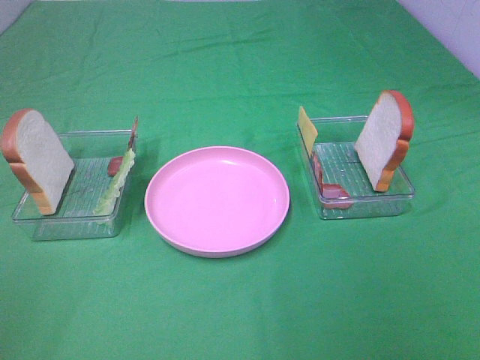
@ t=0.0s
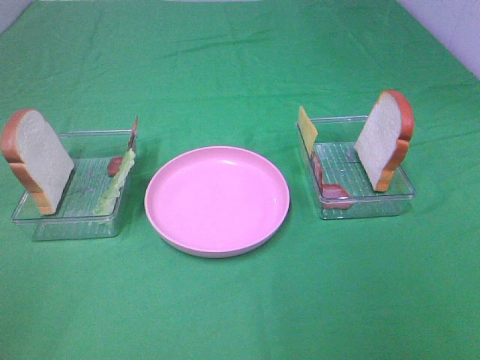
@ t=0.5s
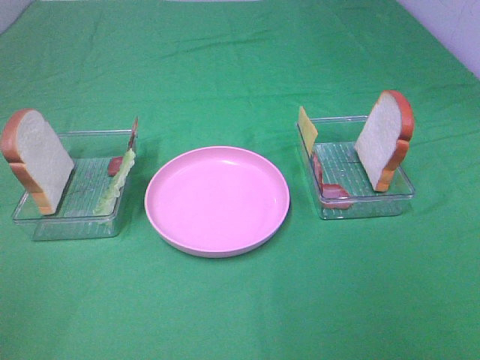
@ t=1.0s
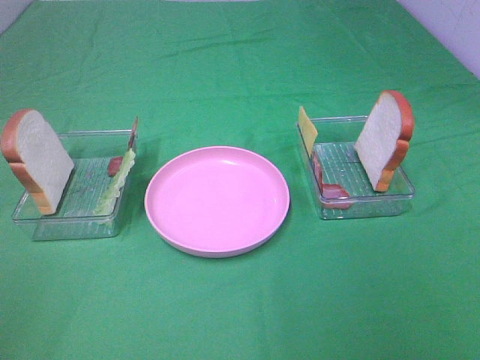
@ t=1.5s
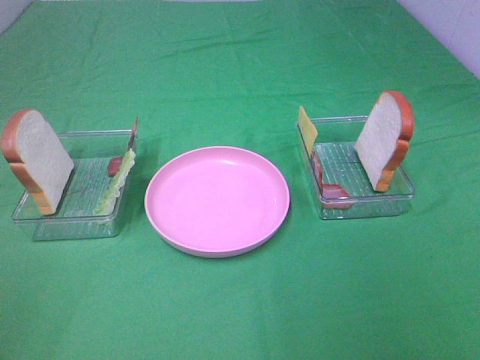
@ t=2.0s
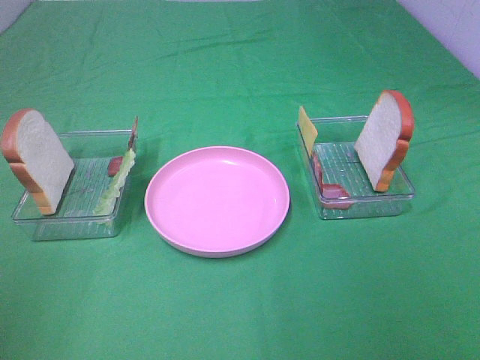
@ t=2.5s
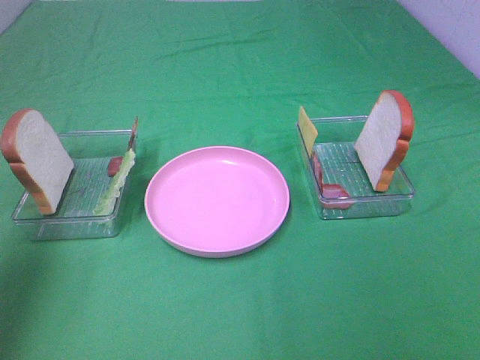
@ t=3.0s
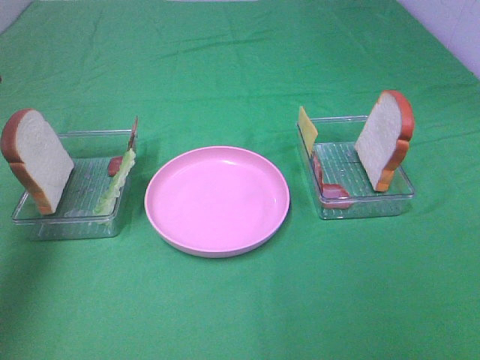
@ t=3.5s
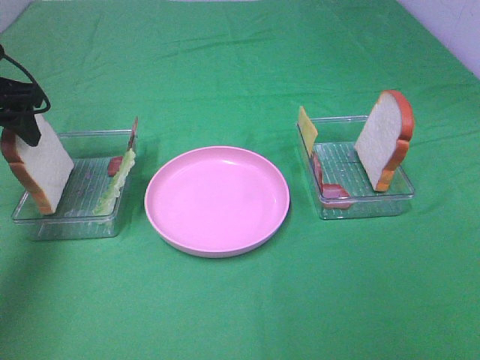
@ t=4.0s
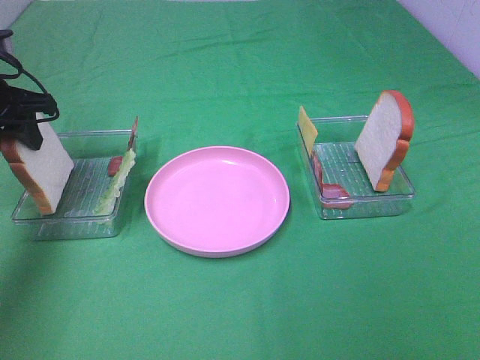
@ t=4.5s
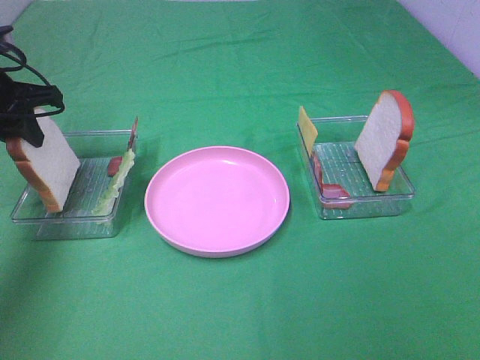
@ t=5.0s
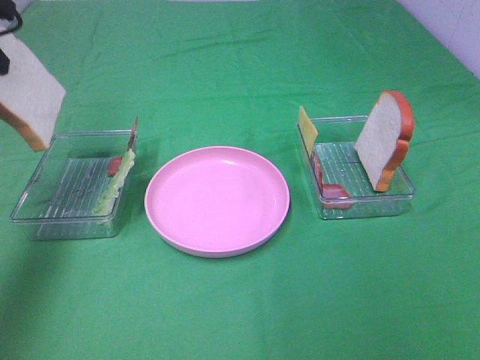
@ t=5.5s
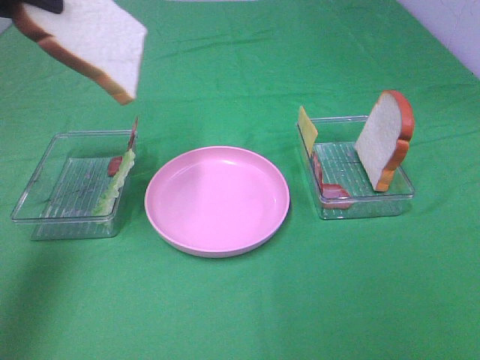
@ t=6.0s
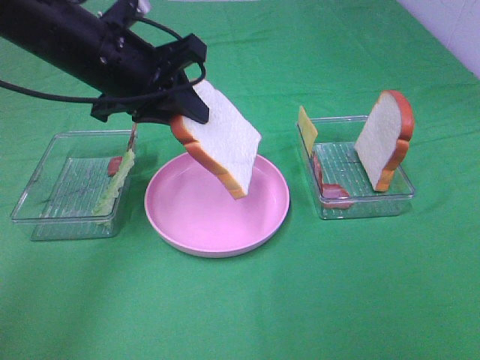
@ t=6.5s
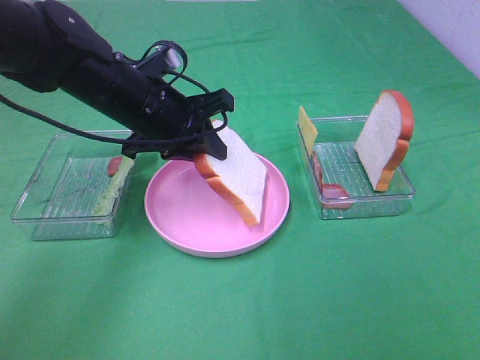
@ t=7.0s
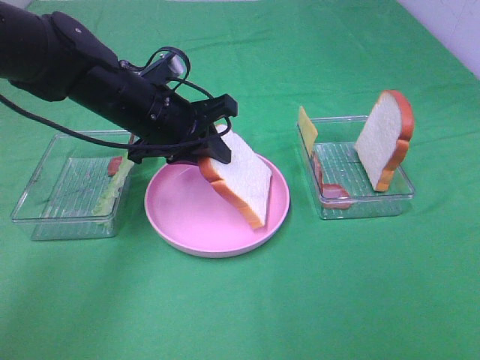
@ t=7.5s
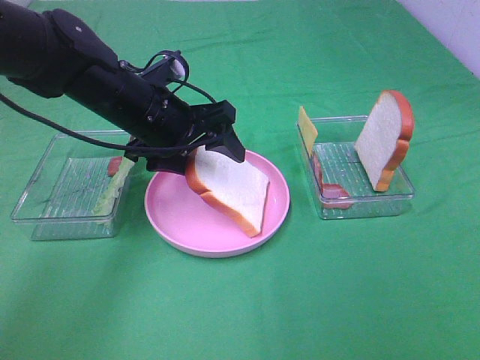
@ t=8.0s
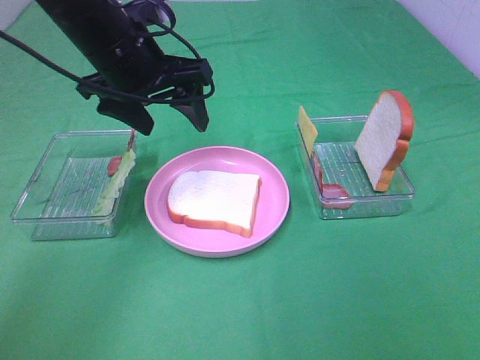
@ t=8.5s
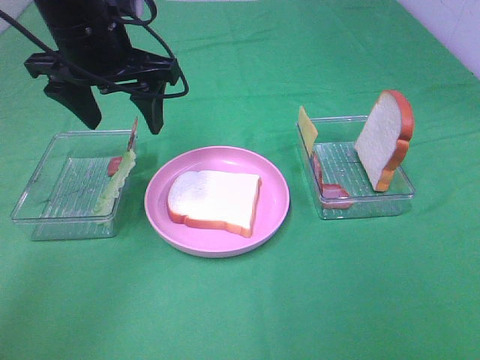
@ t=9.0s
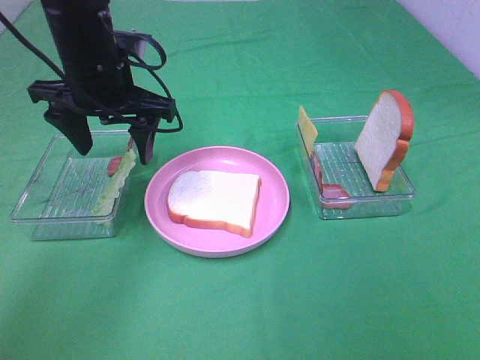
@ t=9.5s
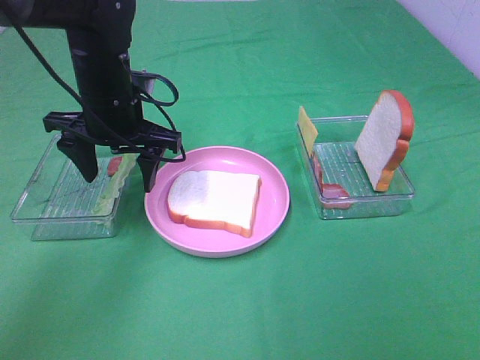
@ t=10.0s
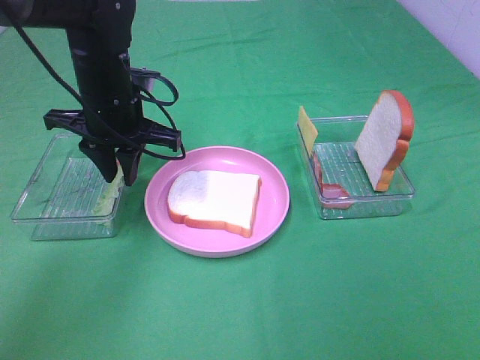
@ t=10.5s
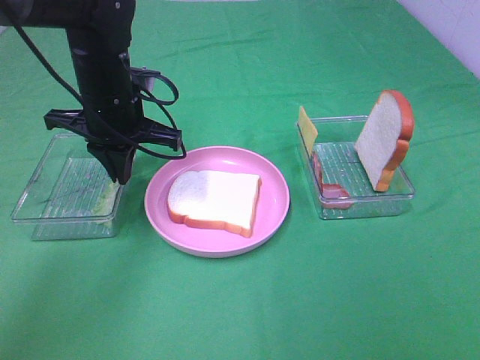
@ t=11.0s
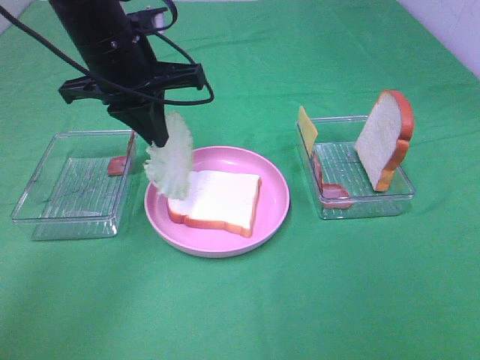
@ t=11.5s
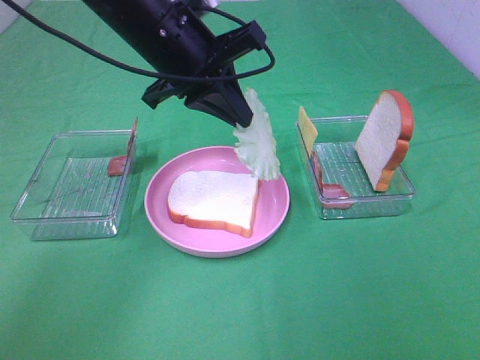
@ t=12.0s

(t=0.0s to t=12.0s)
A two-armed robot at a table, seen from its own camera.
Task of the whole recording: Make sandwiches.
Step, t=0.0s - t=4.5s: Left hand:grab the bread slice.
Step, t=5.0s - t=8.0s: Left hand:place the bread slice on the plate.
Step, t=8.5s - t=11.0s: Left hand:grab the lettuce slice.
t=0.0s - t=2.0s: Neither gripper changes place.
t=2.0s - t=4.0s: The left gripper goes approximately 35 cm forward.
t=4.0s - t=6.0s: The left gripper shifts some 15 cm upward, to the right and backward, and closes its fingers.
t=6.0s - t=8.0s: The left gripper moves downward and to the right, roughly 25 cm, and opens its fingers.
t=8.0s - t=10.0s: The left gripper reaches about 10 cm upward, then returns.
t=10.0s - t=12.0s: The left gripper heads upward and to the right, covering approximately 10 cm, and closes its fingers.

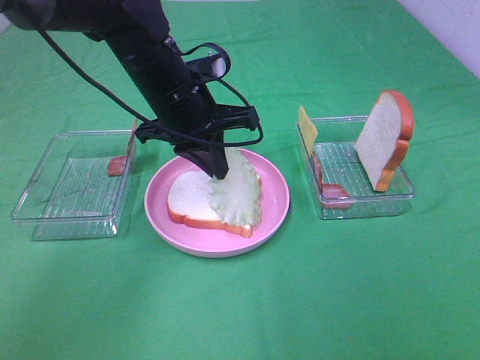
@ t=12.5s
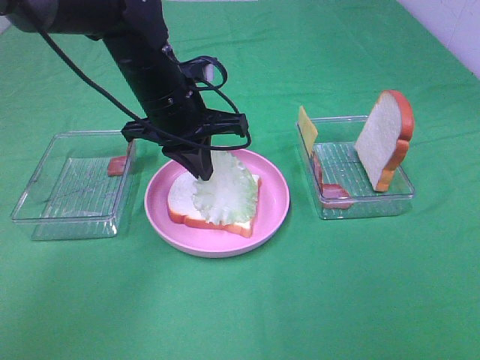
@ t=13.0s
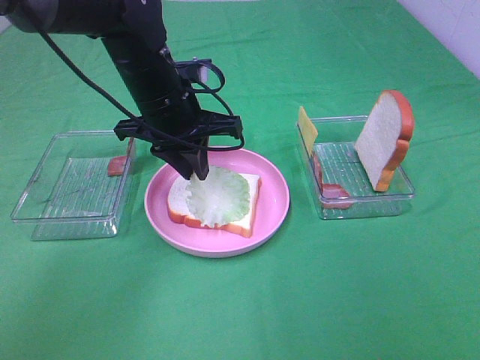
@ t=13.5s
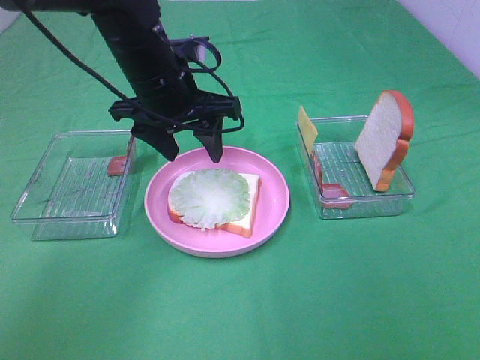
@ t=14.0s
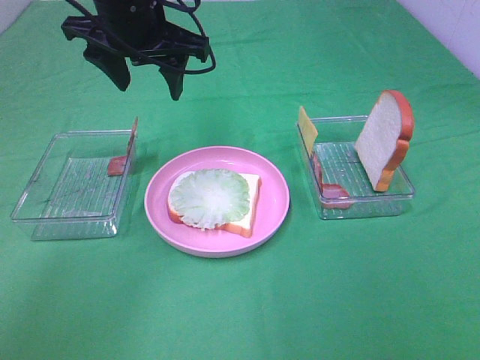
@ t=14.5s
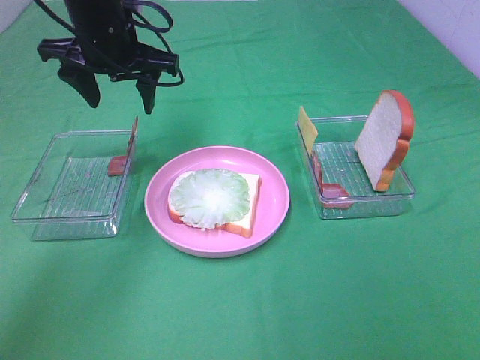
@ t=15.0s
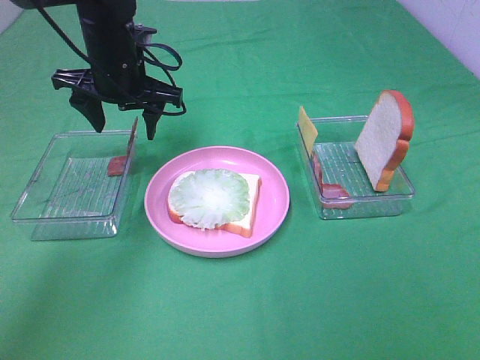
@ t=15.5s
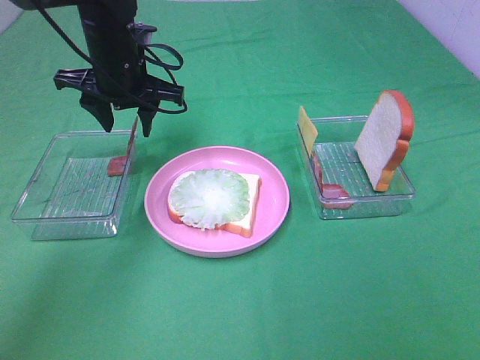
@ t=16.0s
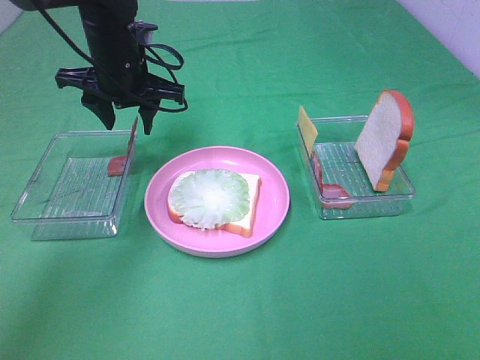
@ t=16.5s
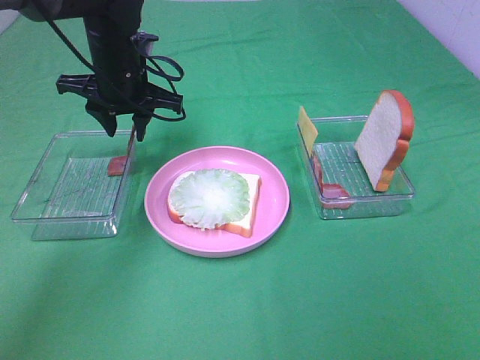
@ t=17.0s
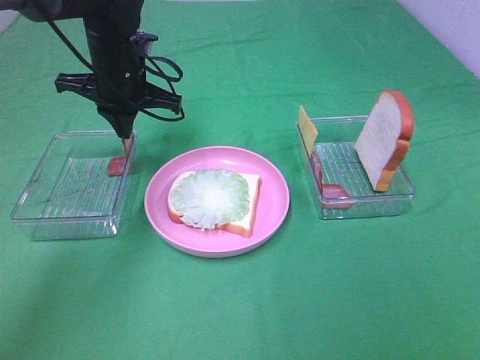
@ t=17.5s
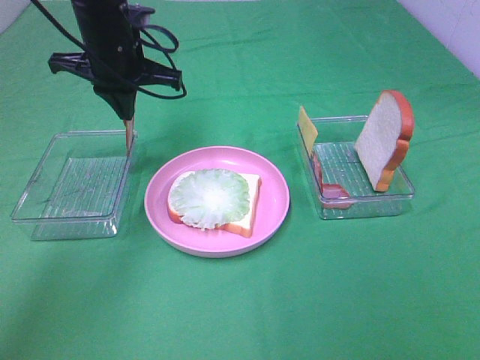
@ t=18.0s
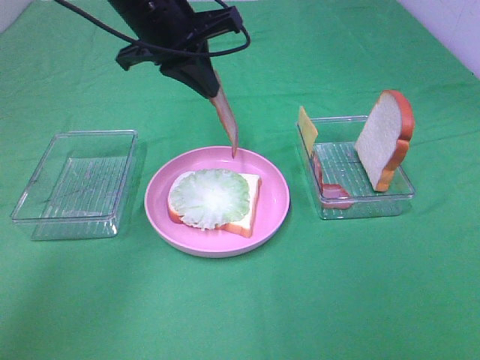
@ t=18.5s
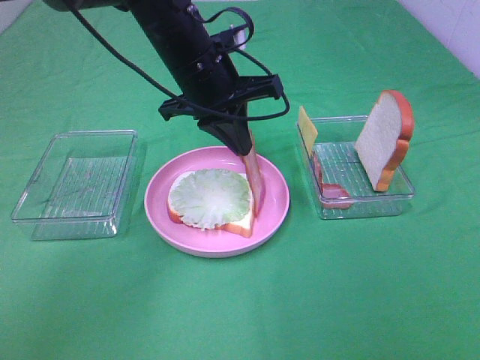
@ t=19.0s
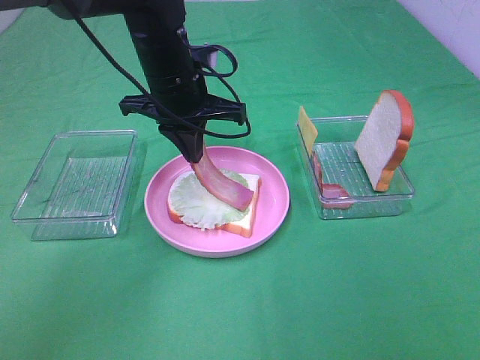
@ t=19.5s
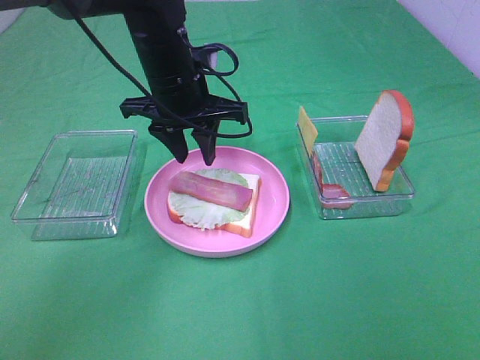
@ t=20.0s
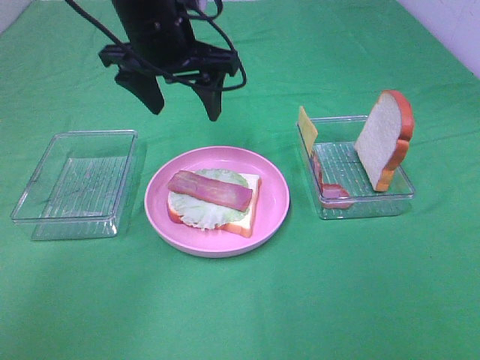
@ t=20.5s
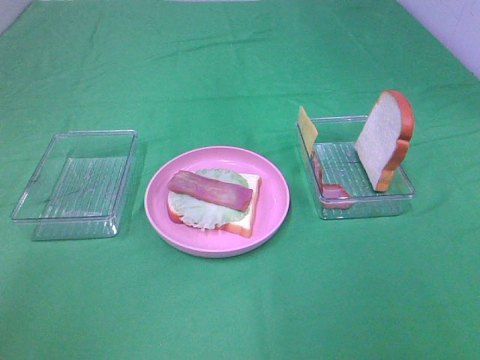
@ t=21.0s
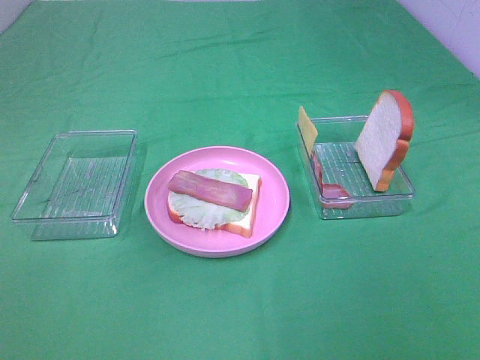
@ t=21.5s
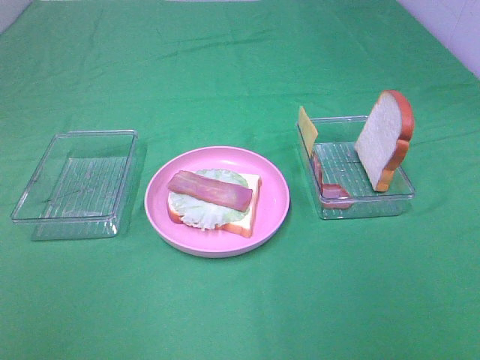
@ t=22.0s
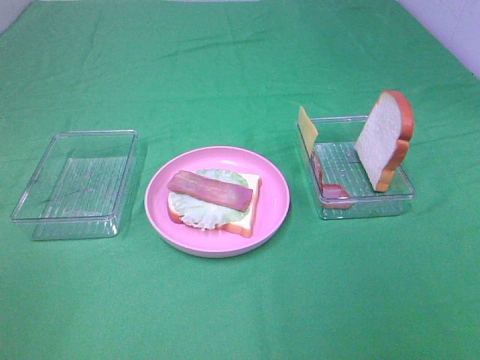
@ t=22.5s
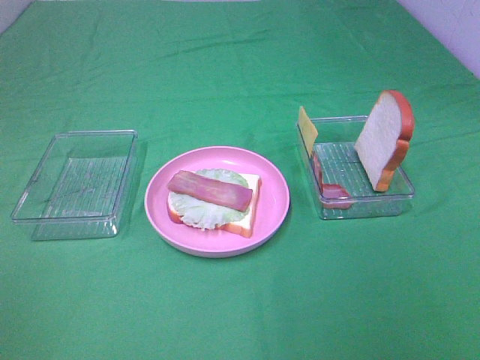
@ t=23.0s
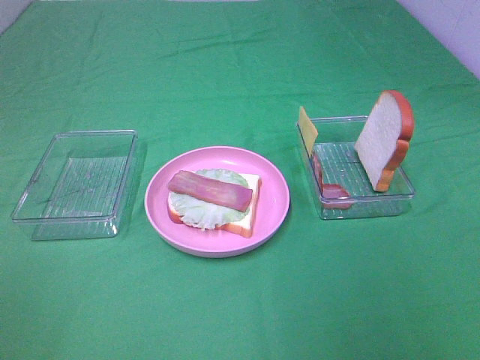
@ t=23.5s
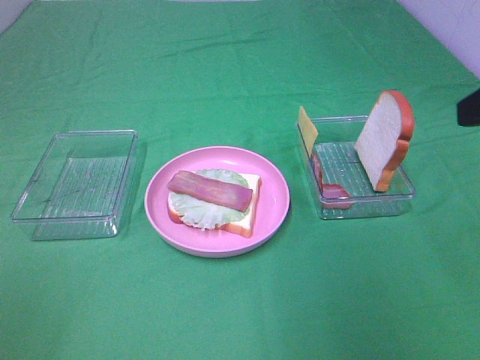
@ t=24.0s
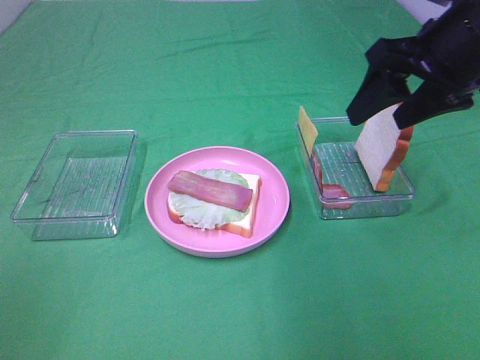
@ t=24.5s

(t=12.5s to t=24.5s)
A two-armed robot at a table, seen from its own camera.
Task of the whole recording: Make sandwiches.
Step, t=14.0s - t=17.5s: Left hand:grab the bacon.
Step, t=18.0s - t=20.0s: Left hand:place bacon on lettuce slice.
t=12.5s - t=14.5s: The left gripper is displaced upward by about 10 cm, and opens up.
t=14.5s - t=16.5s: The left gripper shifts some 10 cm downward.
t=16.5s - t=18.5s: The left gripper is displaced upward and to the right by approximately 10 cm, and closes its fingers.
t=18.5s - t=20.5s: The left gripper opens.
t=20.5s - t=22.5s: The left gripper moves backward and to the left, about 50 cm.
t=22.5s - t=24.5s: The right gripper goes approximately 30 cm forward.

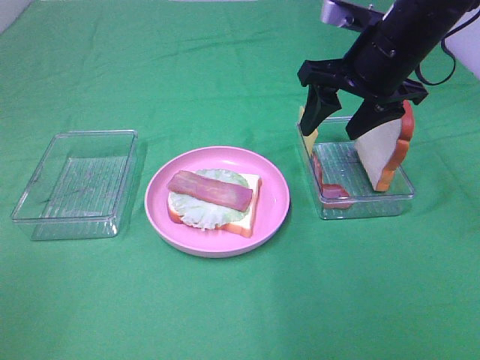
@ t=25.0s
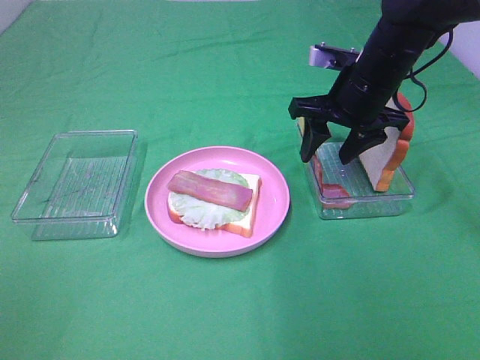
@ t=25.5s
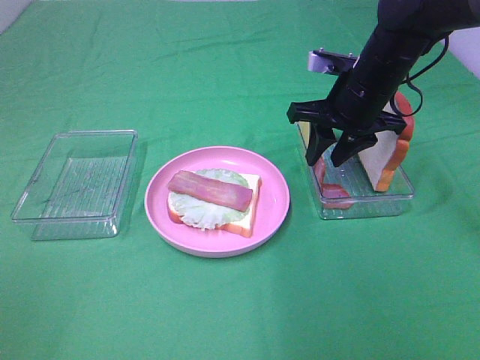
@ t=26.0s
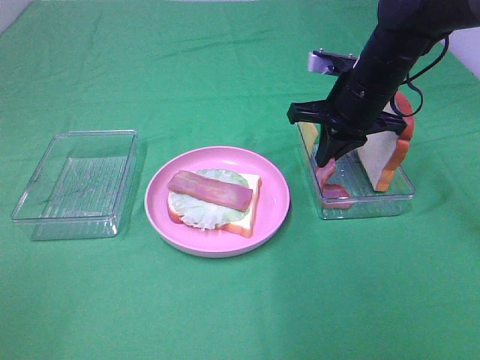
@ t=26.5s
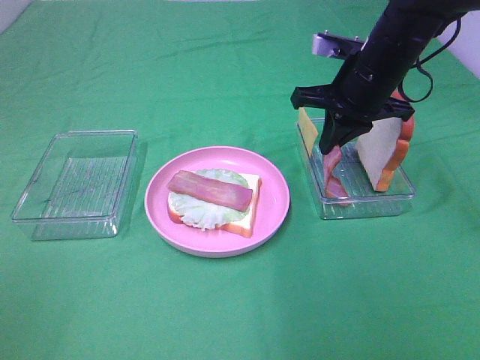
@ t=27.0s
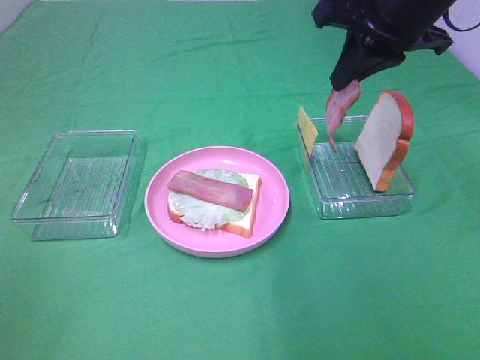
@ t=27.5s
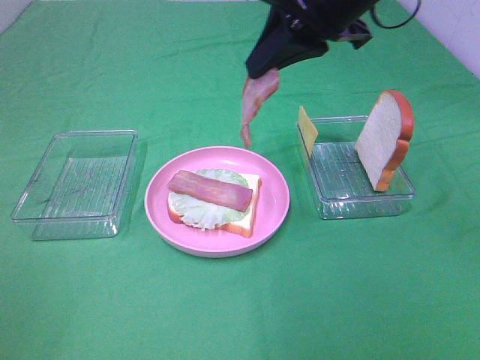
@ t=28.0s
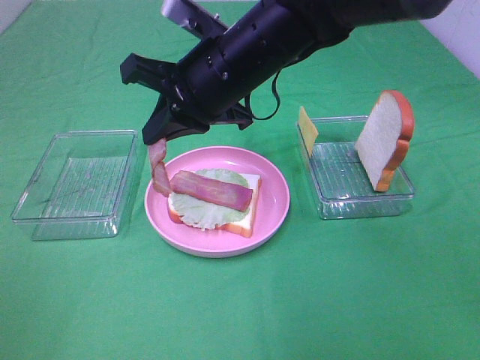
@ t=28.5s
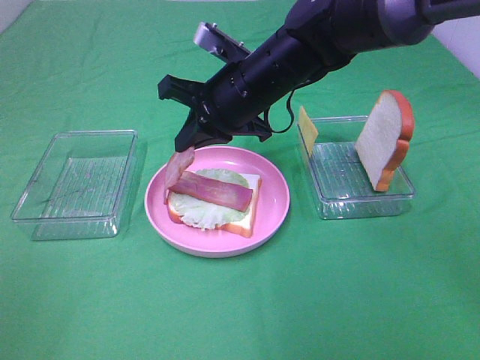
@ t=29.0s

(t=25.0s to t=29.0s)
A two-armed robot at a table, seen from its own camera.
Task of the whole recording: Make sandwiches.
t=25.0s - t=27.0s: The right gripper closes up.
t=27.0s - t=29.0s: The right gripper heads to the left, covering about 15 cm.
